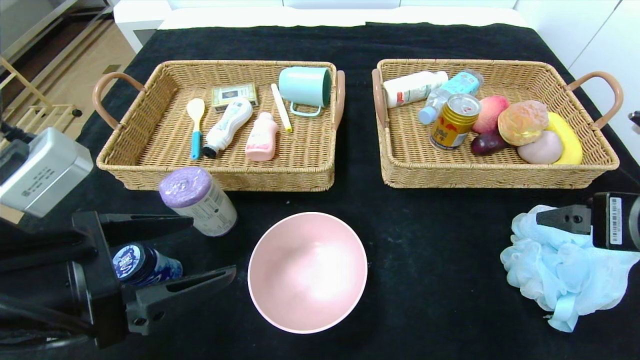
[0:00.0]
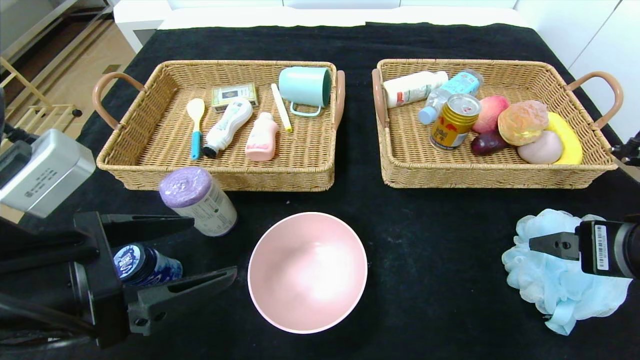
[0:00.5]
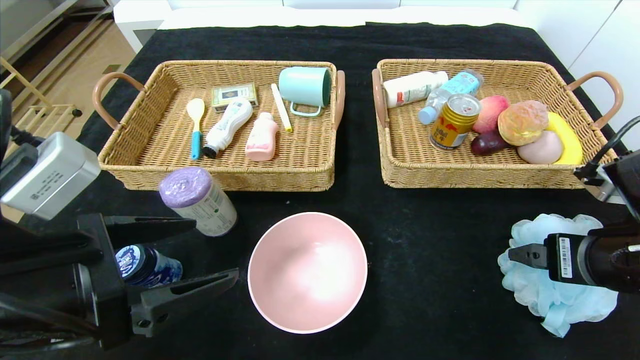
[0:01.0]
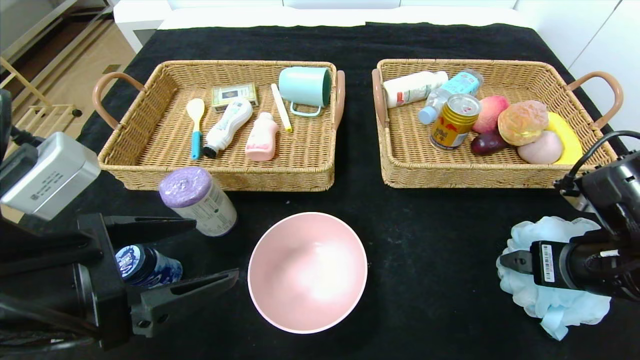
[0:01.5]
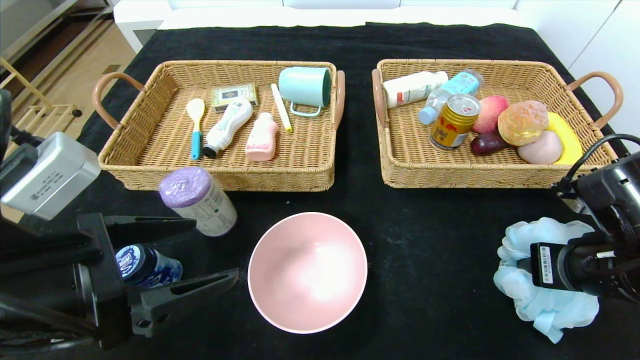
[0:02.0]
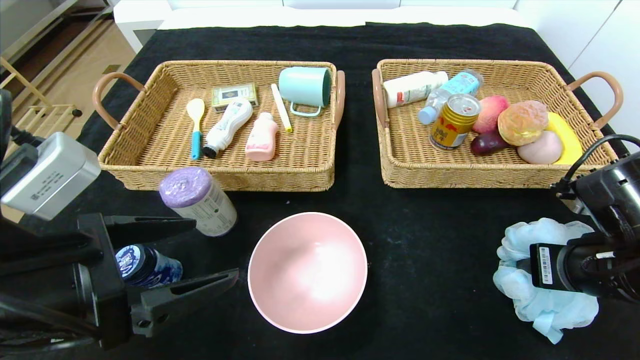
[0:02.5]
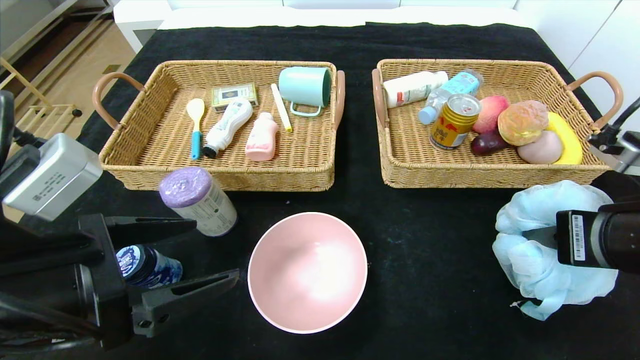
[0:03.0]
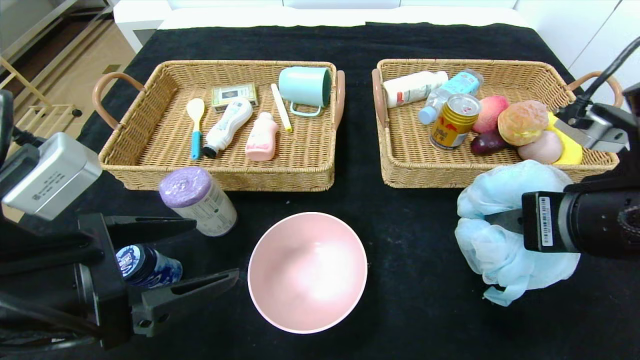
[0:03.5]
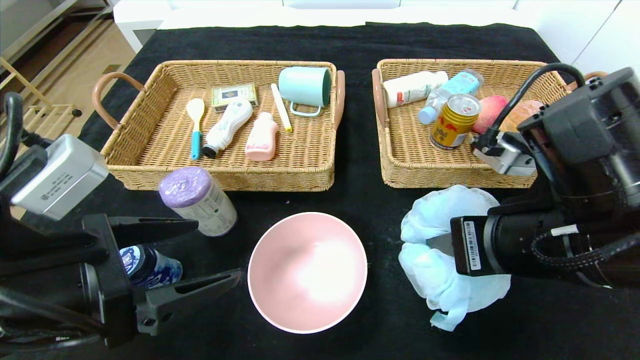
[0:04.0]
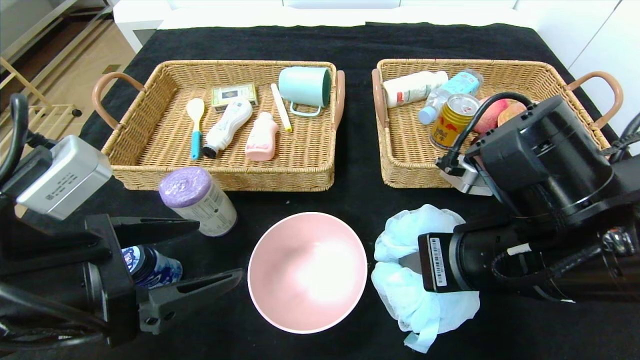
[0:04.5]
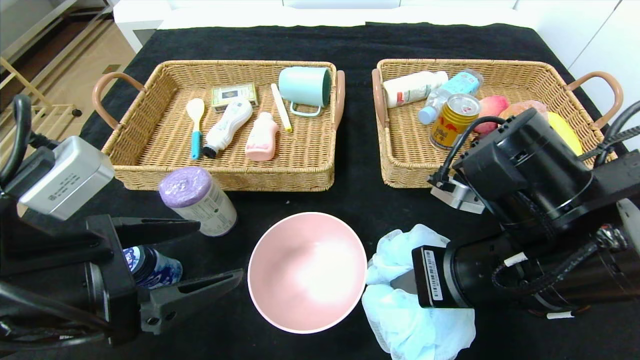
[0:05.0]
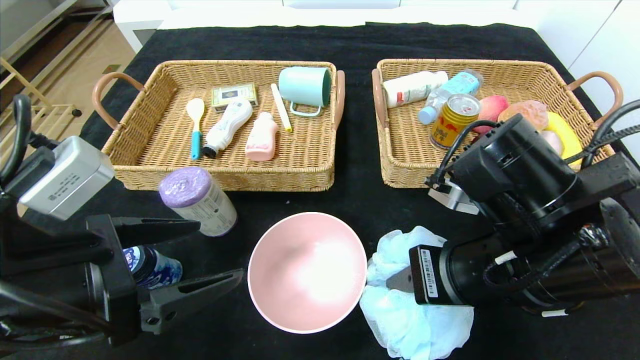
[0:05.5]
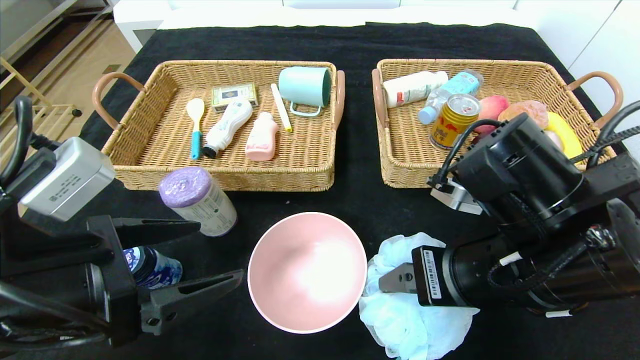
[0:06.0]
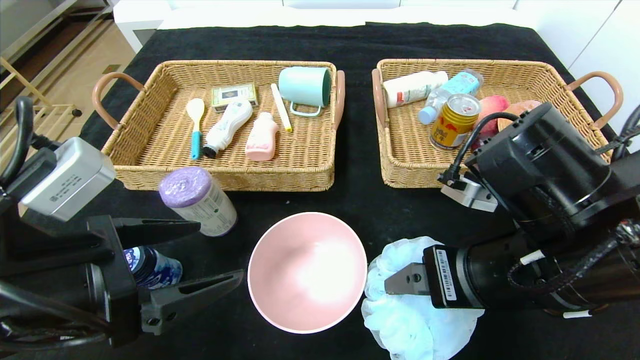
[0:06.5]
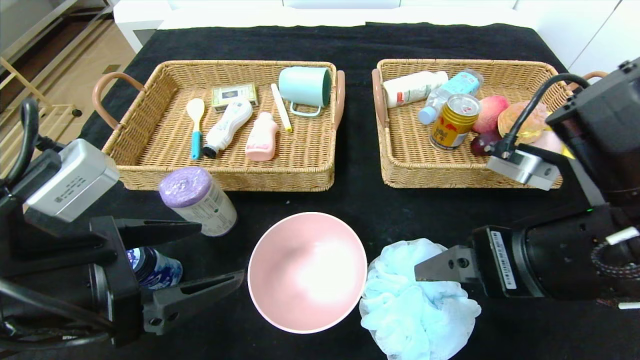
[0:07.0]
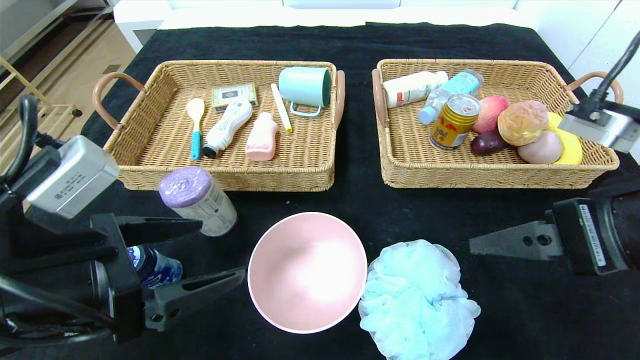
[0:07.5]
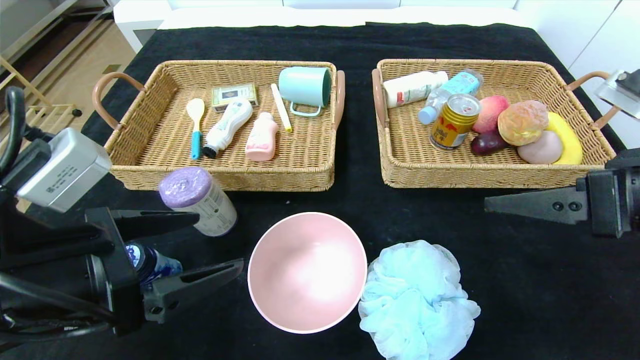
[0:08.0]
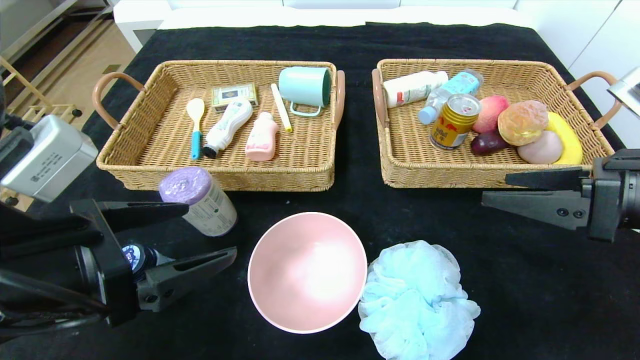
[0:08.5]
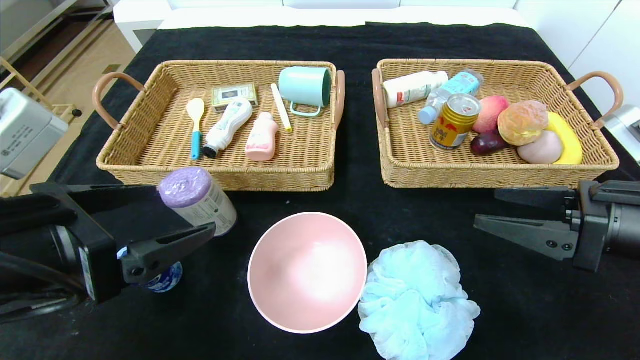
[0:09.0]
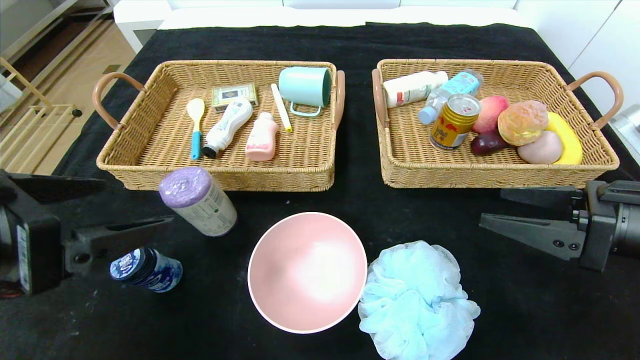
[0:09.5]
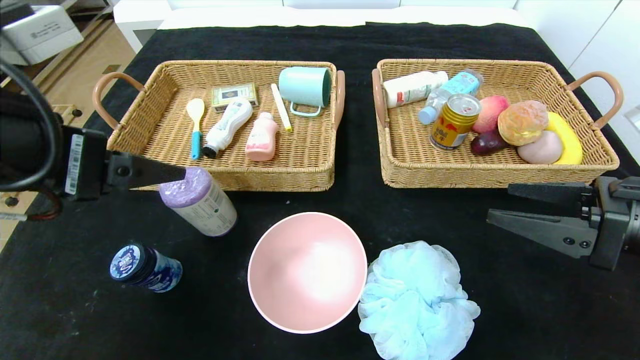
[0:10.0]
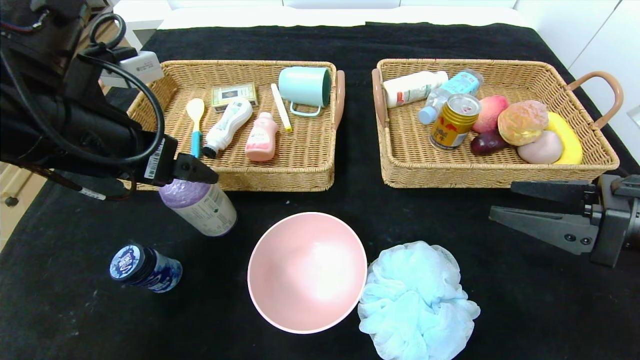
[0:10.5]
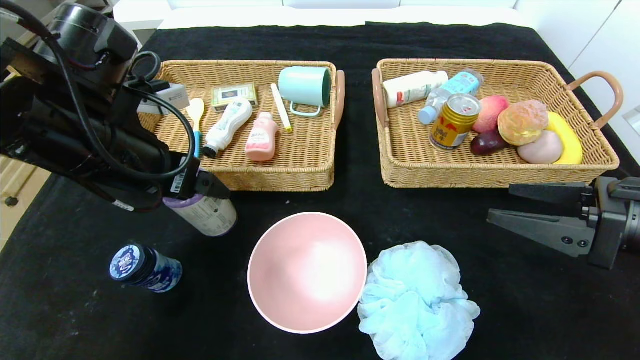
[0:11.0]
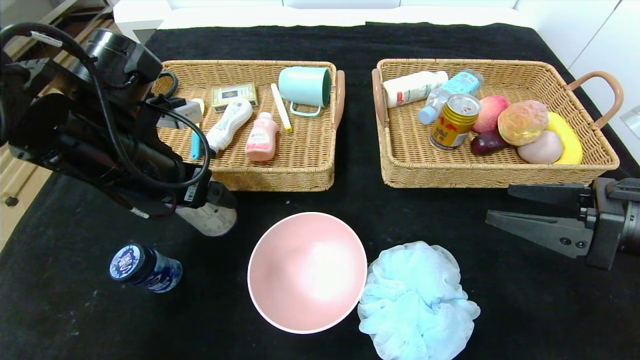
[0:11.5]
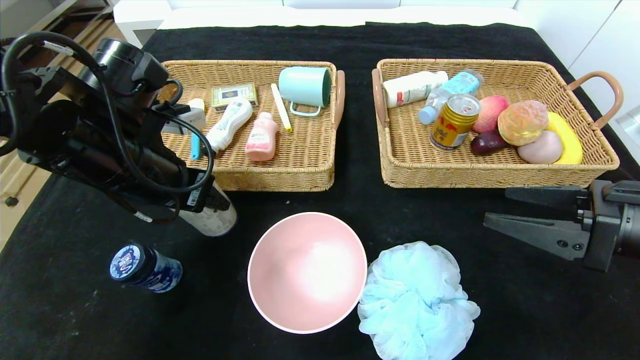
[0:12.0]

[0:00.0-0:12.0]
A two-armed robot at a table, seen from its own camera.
Step, 0:00.0 to 0:07.0: Place the bath ball in the center of the table.
0:00.0 to 0:02.0: The right gripper goes about 5 cm downward, and closes its fingers.
0:02.0 to 0:04.0: The right gripper shifts some 10 cm to the left and upward.
0:04.0 to 0:06.0: The right gripper opens up.
0:06.0 to 0:08.0: The right gripper is displaced to the right and upward by some 15 cm.
0:08.0 to 0:10.0: The left gripper travels upward by about 10 cm.
0:10.0 to 0:12.0: The left gripper goes about 10 cm forward and downward, and closes up.

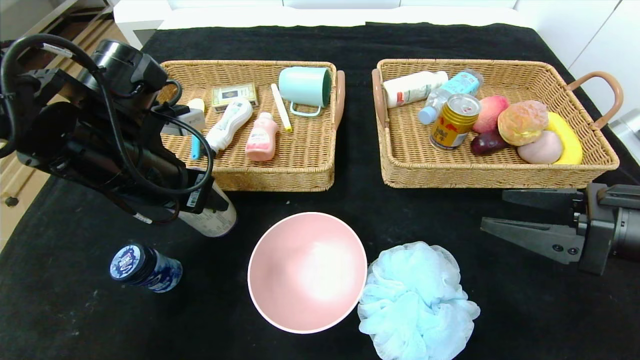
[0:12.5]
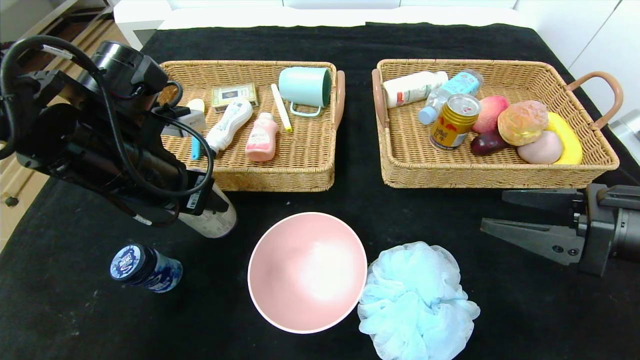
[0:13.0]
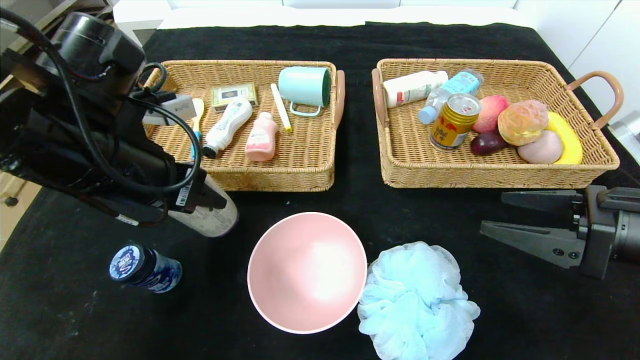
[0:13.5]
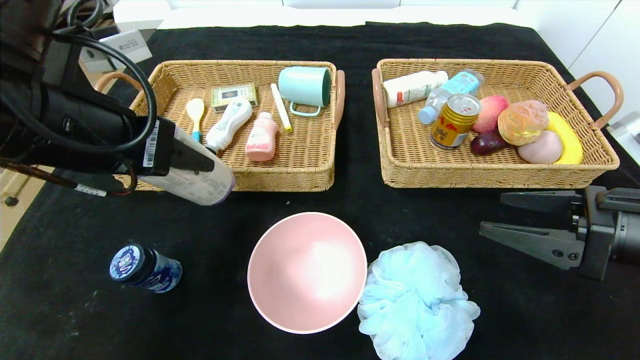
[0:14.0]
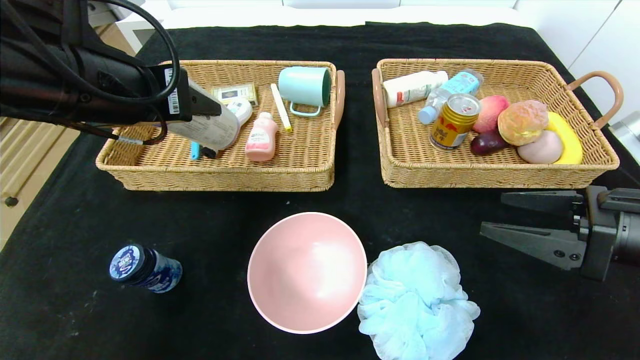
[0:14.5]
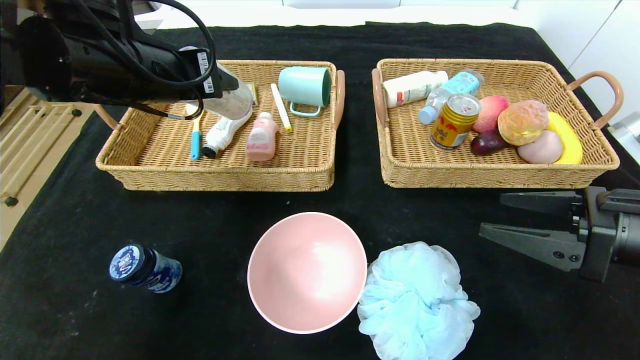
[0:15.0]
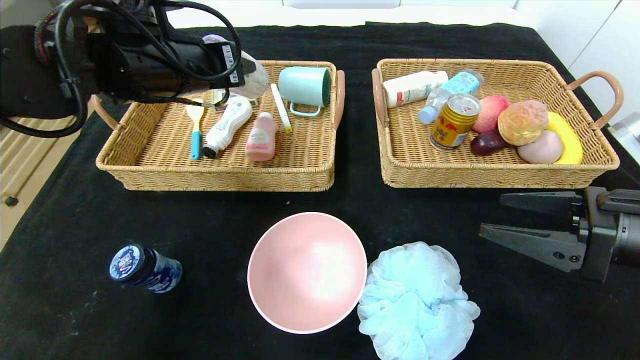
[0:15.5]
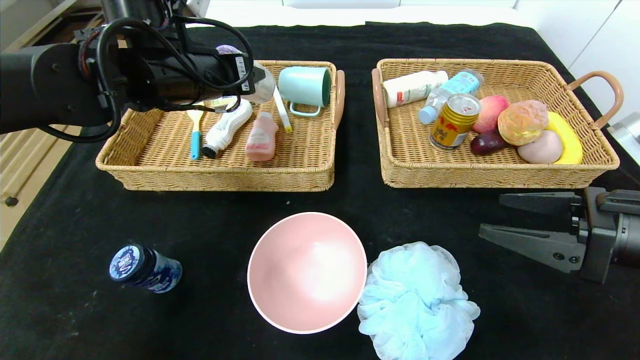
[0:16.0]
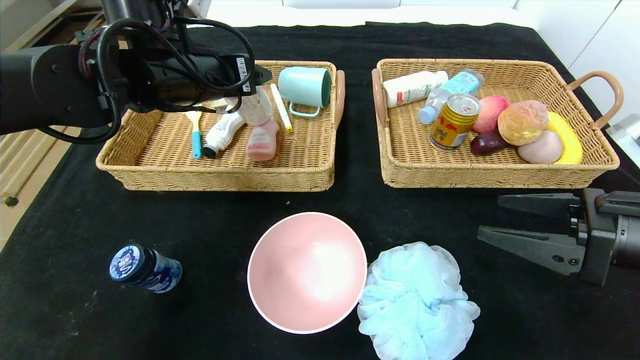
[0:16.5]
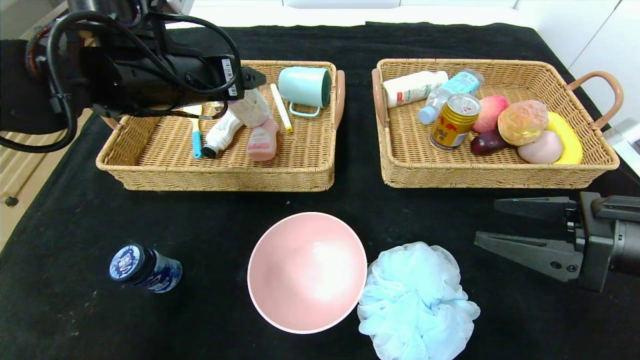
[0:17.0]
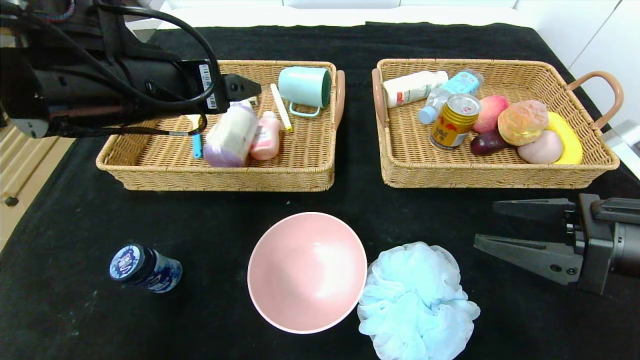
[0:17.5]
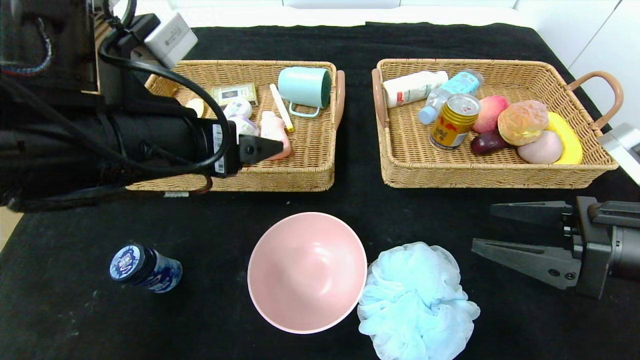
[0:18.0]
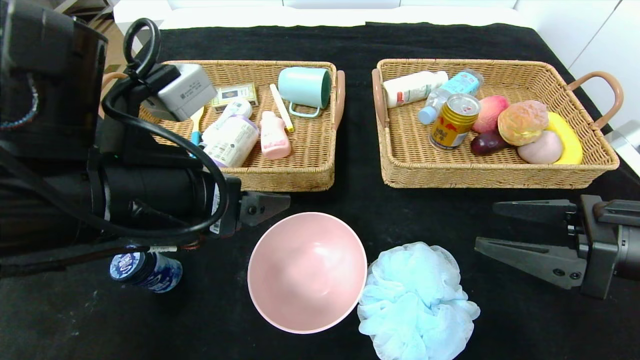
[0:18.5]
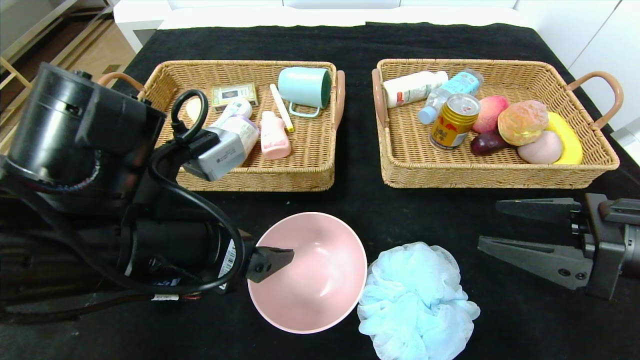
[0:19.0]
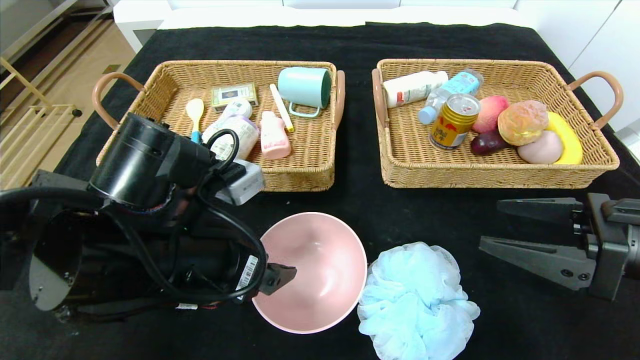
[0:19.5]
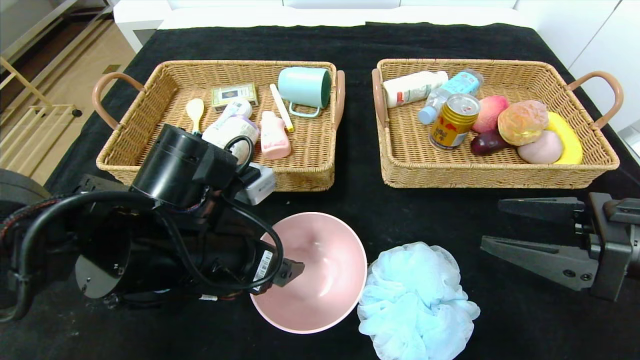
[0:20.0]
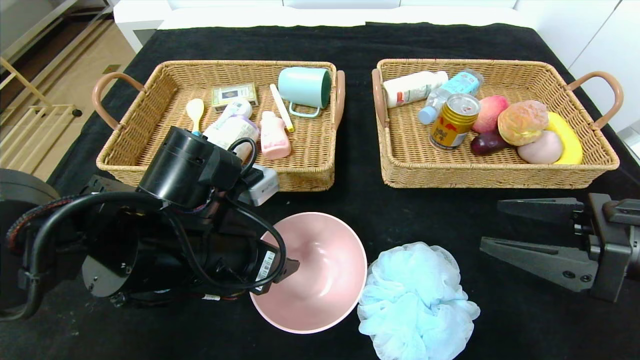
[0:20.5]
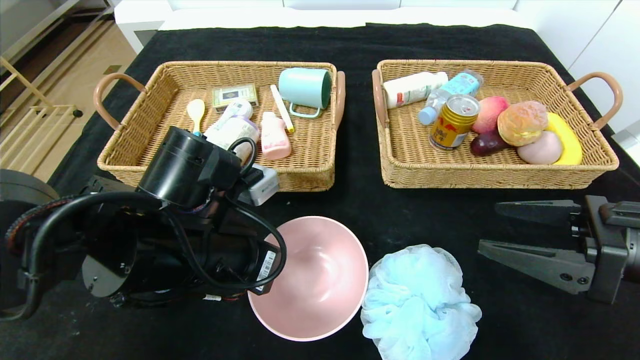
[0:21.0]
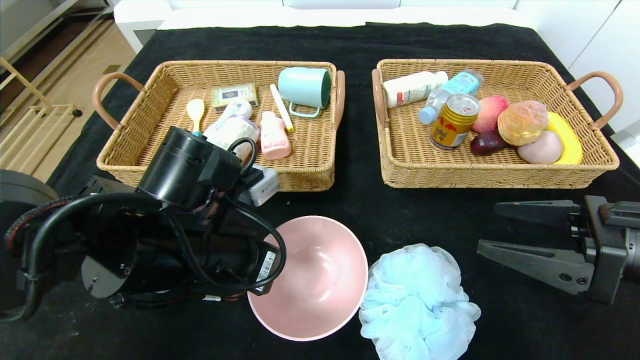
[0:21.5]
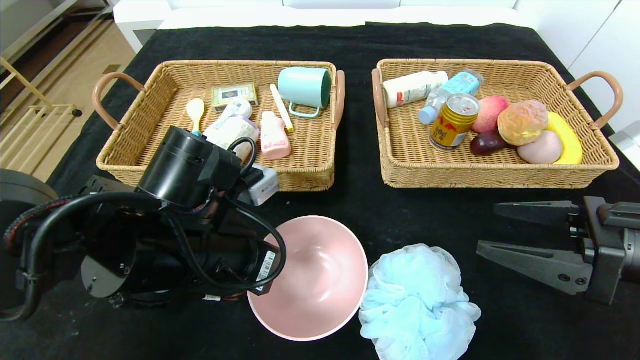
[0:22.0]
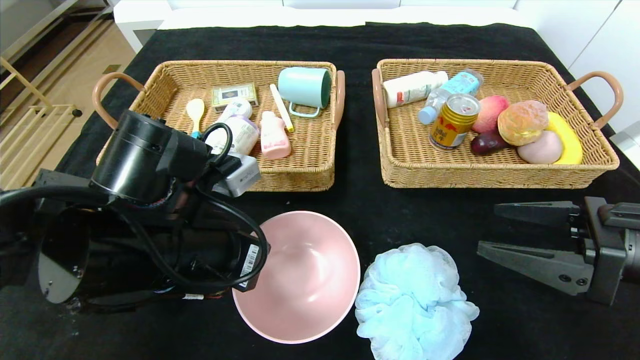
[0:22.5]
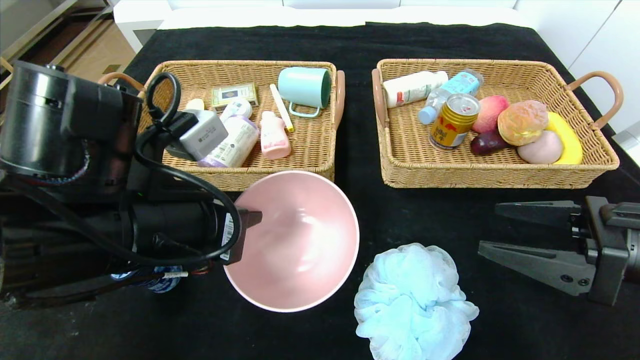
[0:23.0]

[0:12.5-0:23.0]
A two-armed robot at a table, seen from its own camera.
Step, 0:12.5 to 0:16.5: Grasp the purple garbage bag and put it in the left basket.
0:12.5 to 0:14.5: The left gripper is displaced upward by approximately 10 cm.
0:14.5 to 0:16.5: The left gripper moves forward, about 10 cm.
0:16.5 to 0:19.0: The left gripper goes roughly 20 cm backward and downward.
0:19.0 to 0:21.0: The left gripper shifts by roughly 5 cm, and closes.
0:21.0 to 0:23.0: The left gripper changes place by approximately 5 cm.
